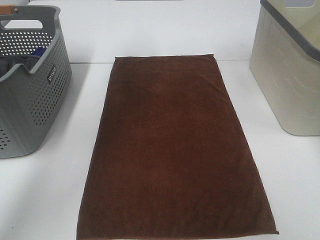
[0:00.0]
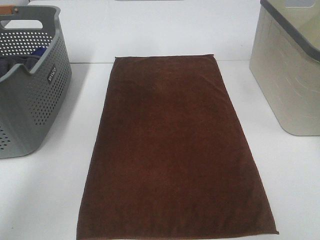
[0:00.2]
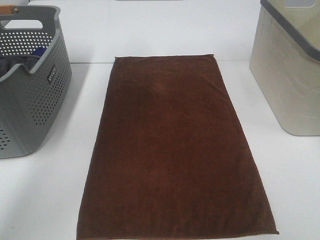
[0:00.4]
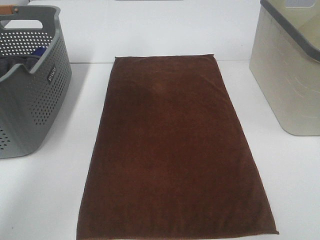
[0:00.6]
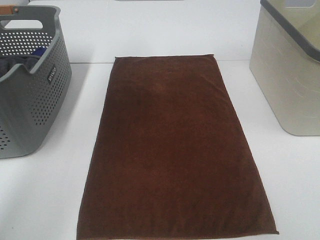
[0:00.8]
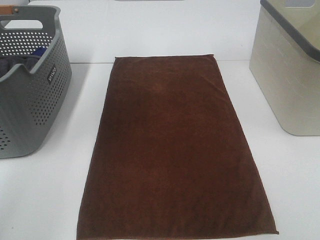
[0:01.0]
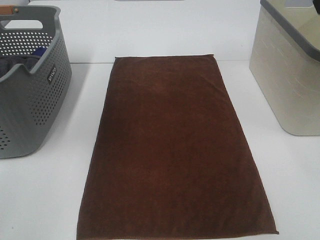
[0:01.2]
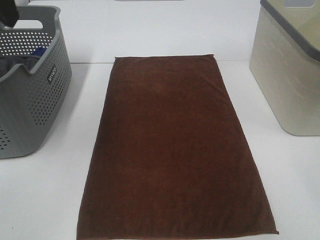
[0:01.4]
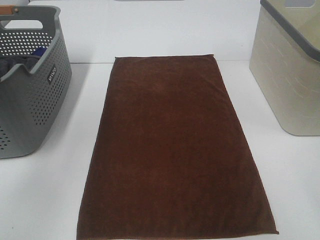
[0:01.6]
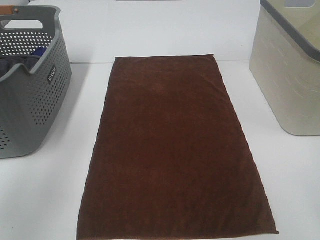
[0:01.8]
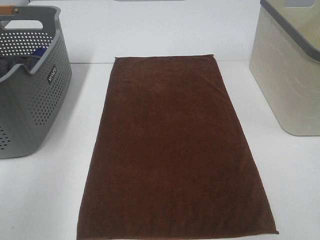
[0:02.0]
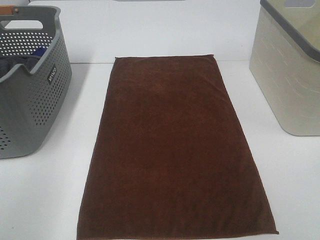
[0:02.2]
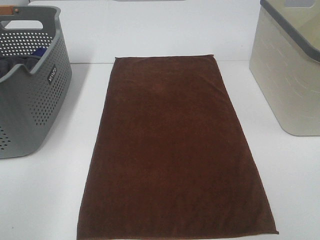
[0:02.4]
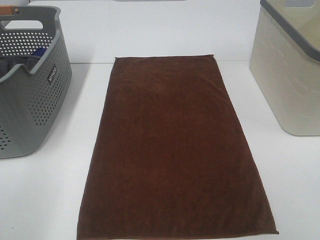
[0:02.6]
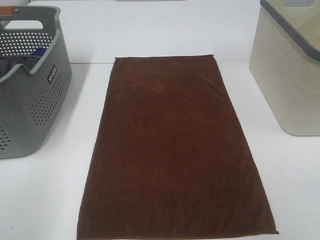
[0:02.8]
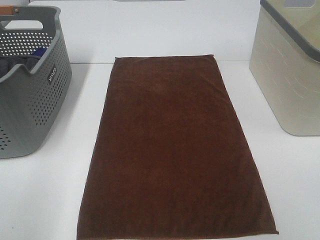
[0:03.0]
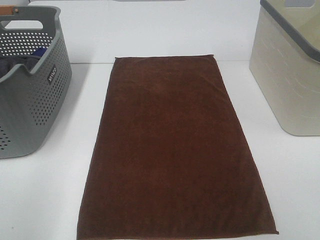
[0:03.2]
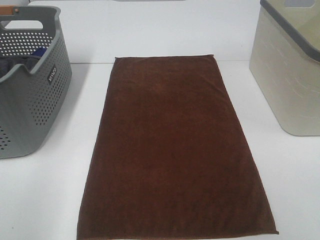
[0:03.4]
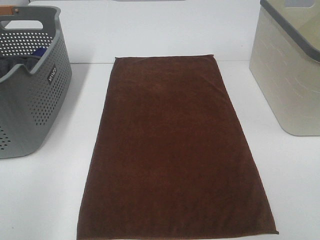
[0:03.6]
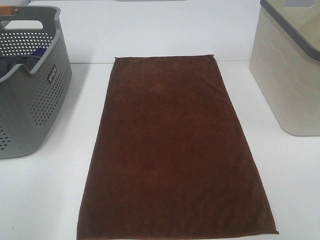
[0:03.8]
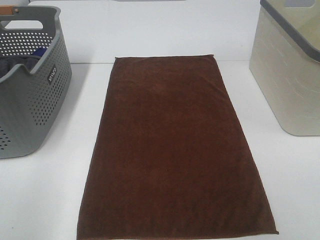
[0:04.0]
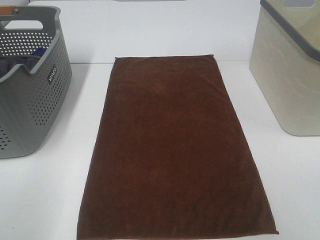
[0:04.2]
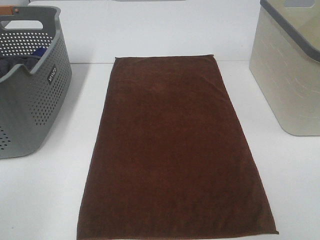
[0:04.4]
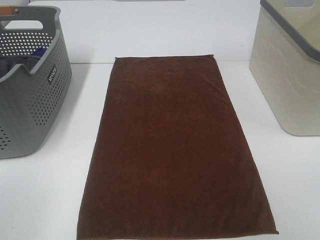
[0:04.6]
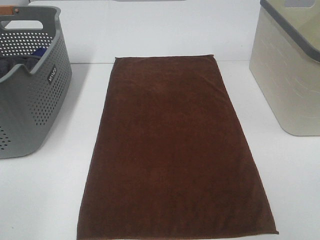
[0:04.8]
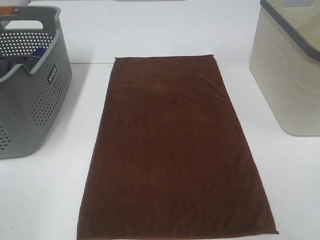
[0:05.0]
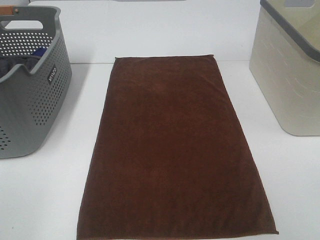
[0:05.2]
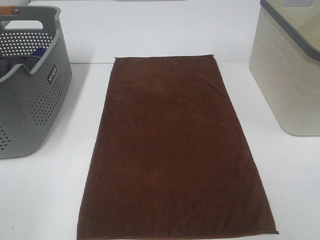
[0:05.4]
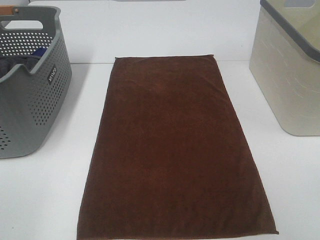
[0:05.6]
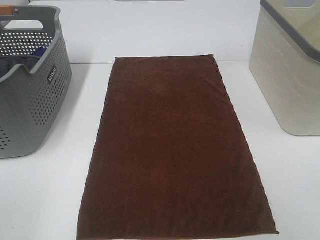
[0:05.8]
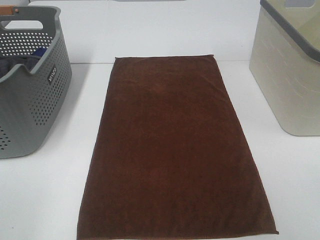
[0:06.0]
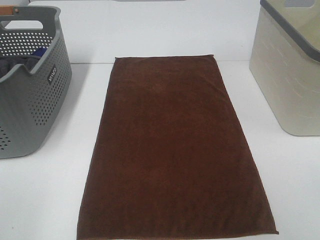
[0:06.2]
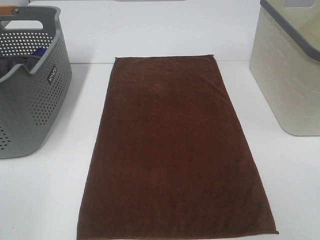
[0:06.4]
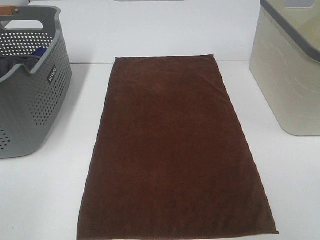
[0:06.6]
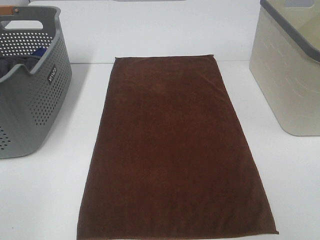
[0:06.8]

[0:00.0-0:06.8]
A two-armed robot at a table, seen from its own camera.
Task of the whole recording: Remove the towel and place it.
0:00.0 to 0:01.4: The left gripper travels backward by about 20 cm.
0:01.4 to 0:02.8: The left gripper moves backward and downward, roughly 25 cm.
0:02.8 to 0:04.0: Both grippers stay put.
0:05.4 to 0:06.8: Neither gripper changes place.

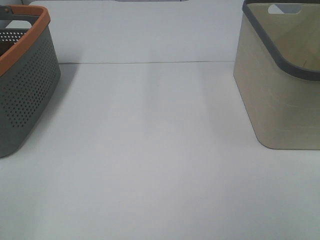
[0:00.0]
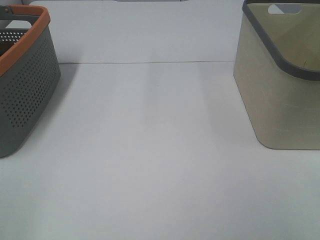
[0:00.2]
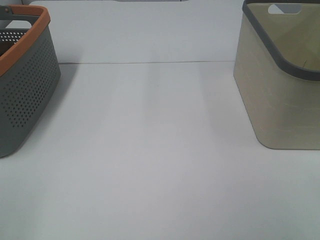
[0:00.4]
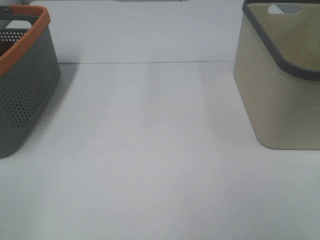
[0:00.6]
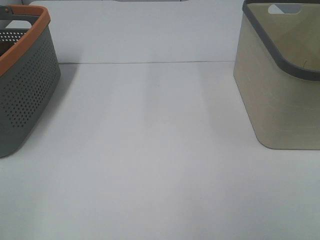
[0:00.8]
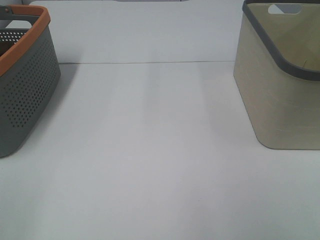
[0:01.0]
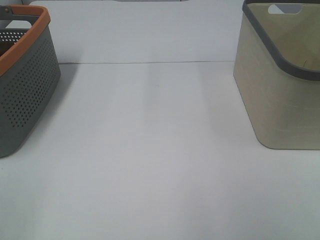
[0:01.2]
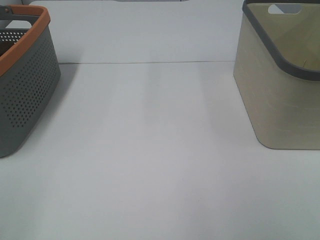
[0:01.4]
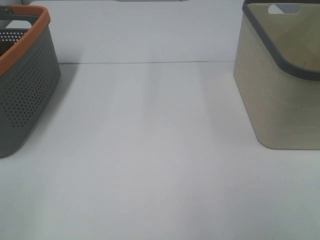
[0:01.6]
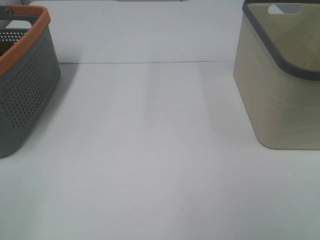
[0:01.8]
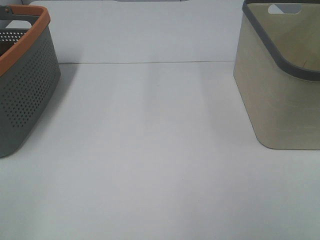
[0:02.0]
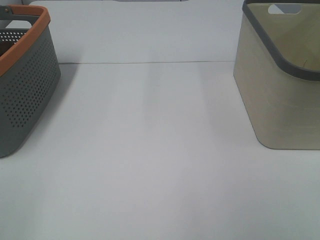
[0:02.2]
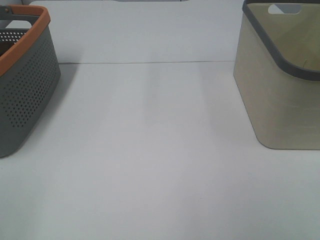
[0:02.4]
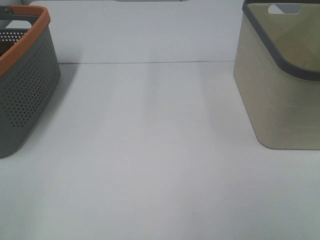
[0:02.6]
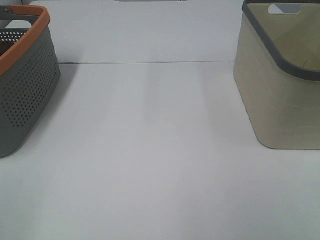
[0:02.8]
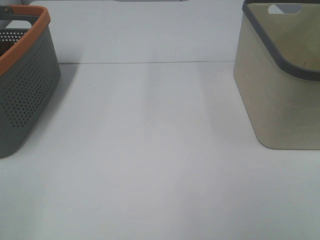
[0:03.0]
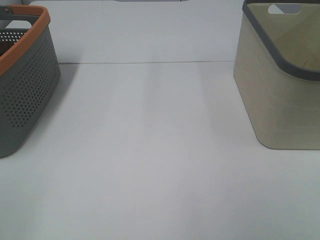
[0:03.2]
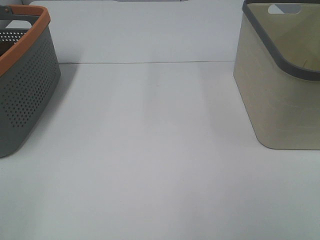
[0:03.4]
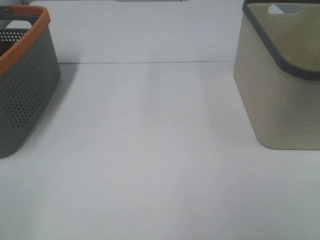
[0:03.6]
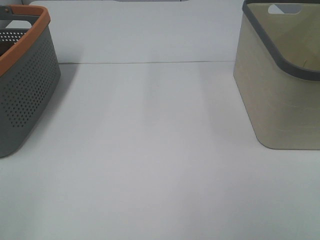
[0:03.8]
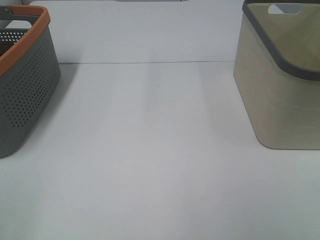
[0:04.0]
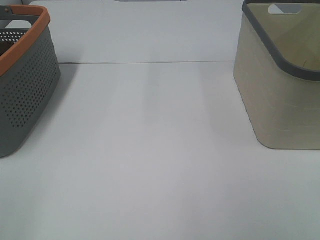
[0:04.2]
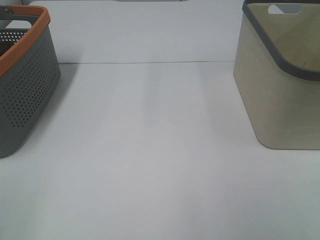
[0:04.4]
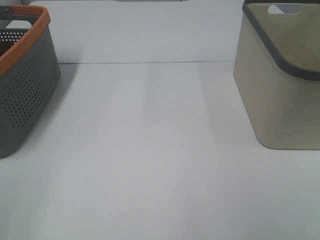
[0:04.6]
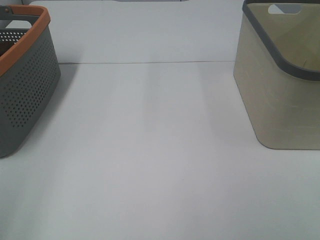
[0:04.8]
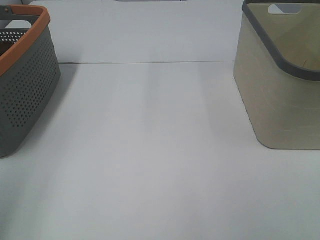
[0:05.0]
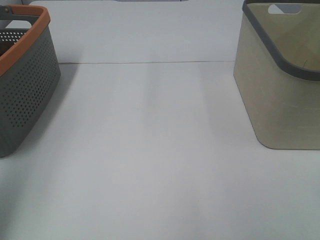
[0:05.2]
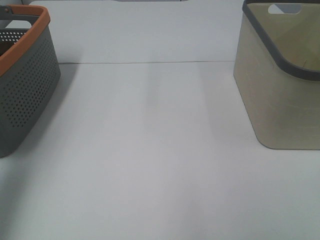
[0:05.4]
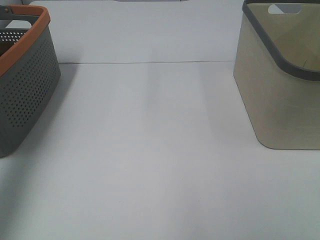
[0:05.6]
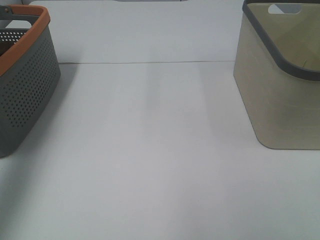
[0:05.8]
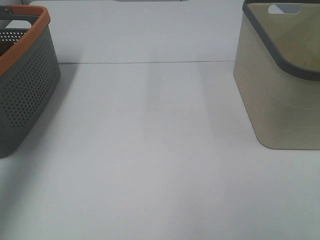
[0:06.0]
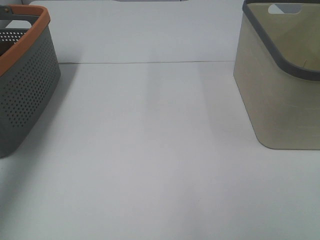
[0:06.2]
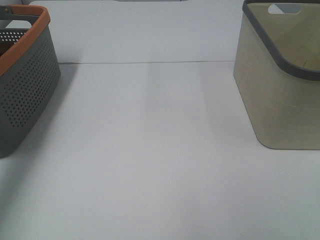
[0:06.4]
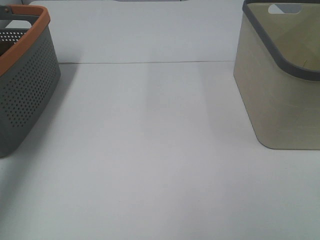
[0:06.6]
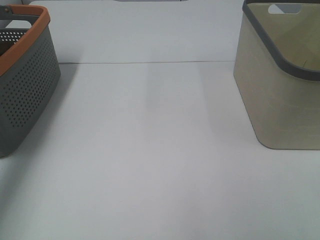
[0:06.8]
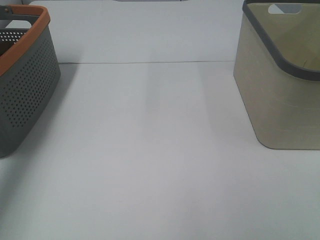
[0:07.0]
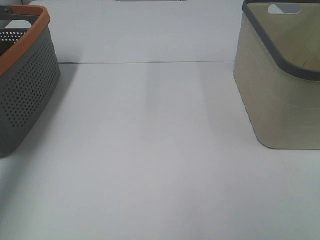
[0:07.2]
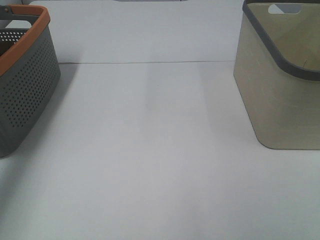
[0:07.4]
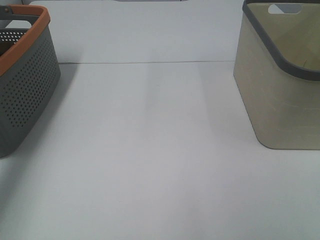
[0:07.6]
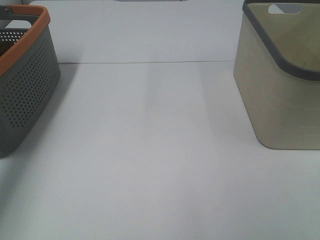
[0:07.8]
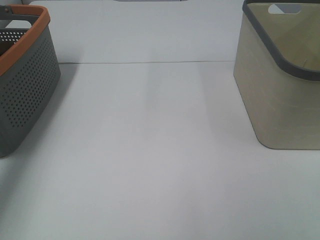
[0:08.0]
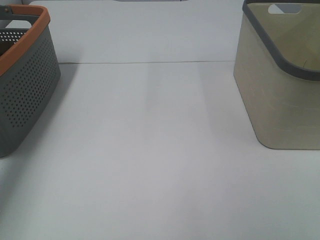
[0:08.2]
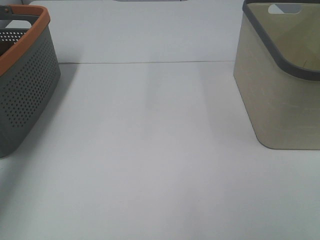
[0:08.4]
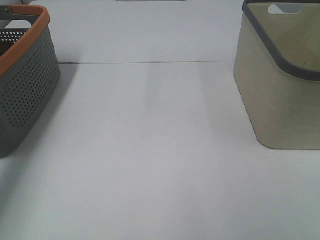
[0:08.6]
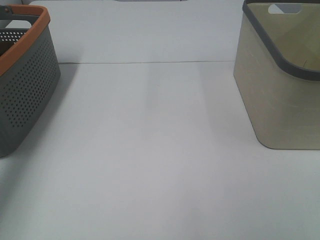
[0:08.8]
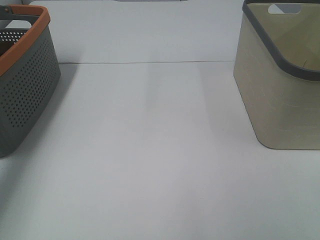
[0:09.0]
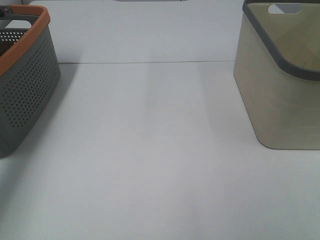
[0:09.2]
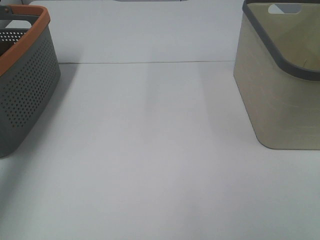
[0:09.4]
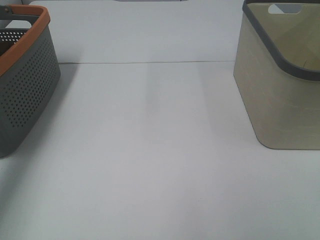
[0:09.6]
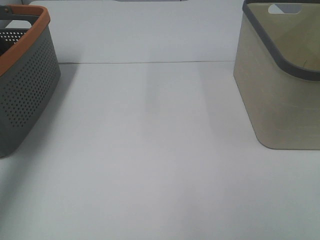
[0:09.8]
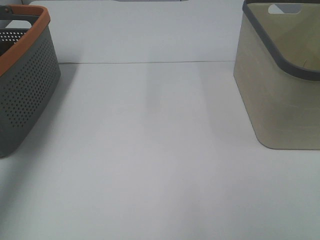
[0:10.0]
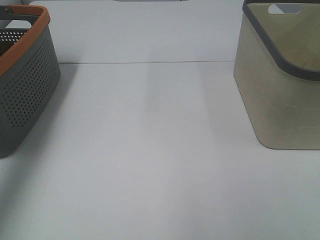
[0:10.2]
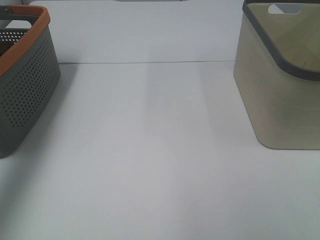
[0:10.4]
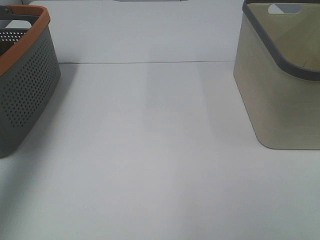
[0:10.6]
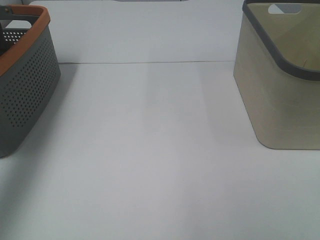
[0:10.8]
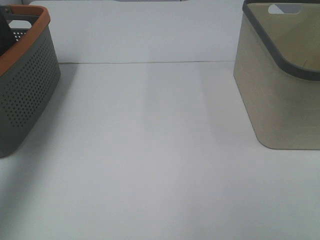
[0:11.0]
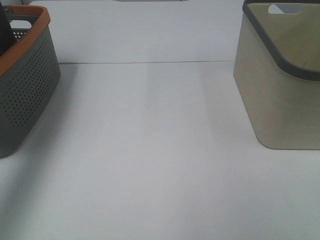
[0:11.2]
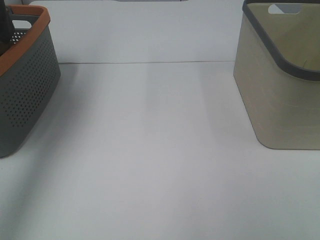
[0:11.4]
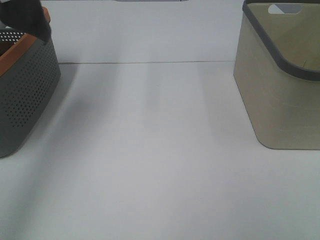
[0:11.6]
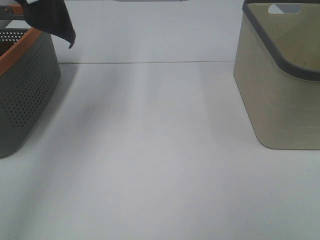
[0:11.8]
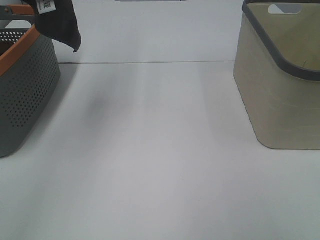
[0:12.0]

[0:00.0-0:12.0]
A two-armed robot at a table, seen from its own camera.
Task of the whole recording: Remove the towel and place it.
0:01.6 to 0:04.4: Neither gripper changes place.
0:04.4 to 0:06.0: The left gripper is displaced forward by approximately 35 cm.
0:10.4 to 0:12.0: The left gripper is displaced upward, to the right and backward by approximately 20 cm.

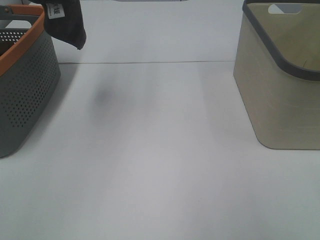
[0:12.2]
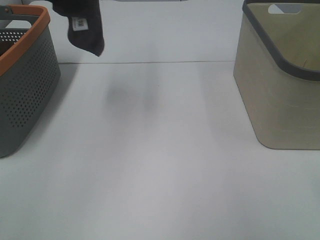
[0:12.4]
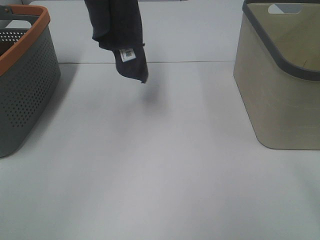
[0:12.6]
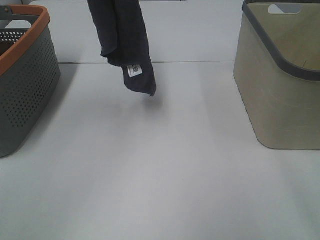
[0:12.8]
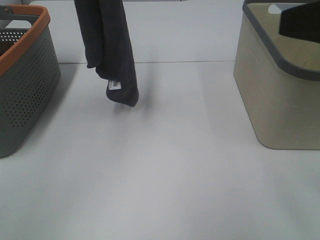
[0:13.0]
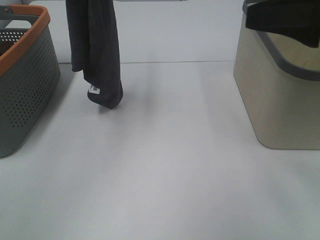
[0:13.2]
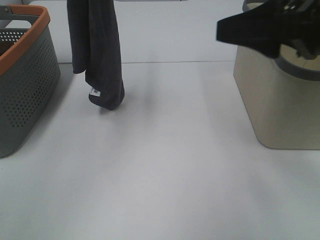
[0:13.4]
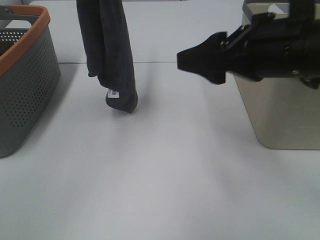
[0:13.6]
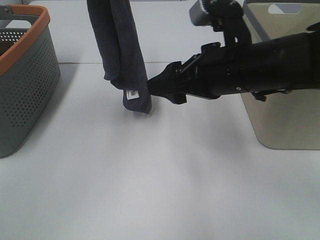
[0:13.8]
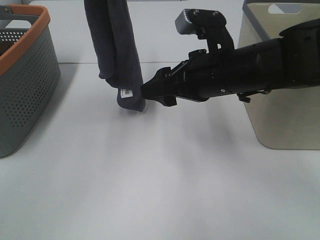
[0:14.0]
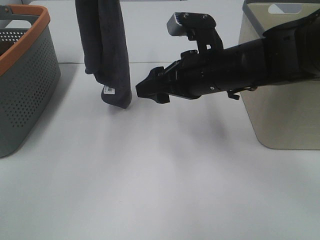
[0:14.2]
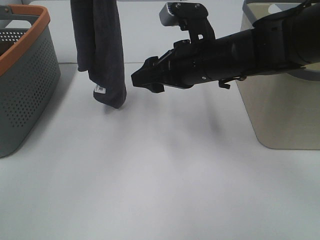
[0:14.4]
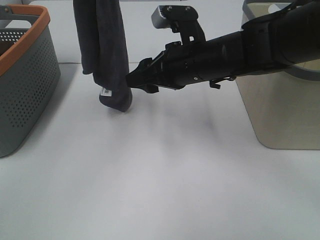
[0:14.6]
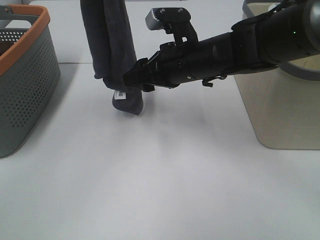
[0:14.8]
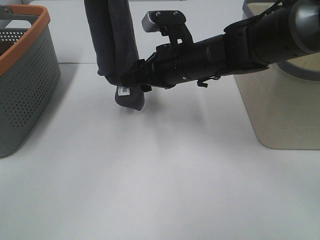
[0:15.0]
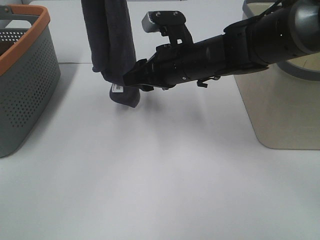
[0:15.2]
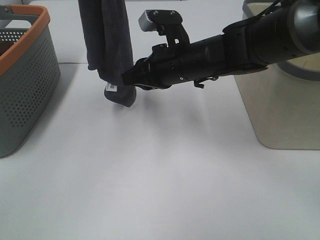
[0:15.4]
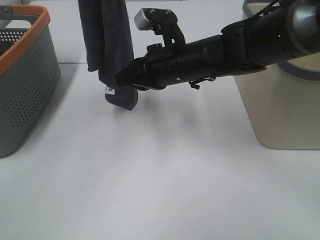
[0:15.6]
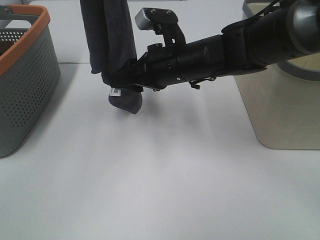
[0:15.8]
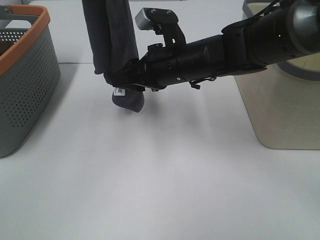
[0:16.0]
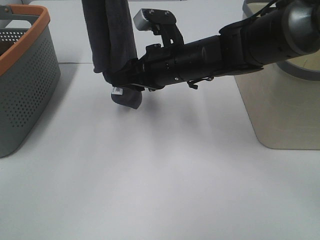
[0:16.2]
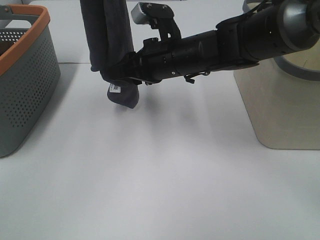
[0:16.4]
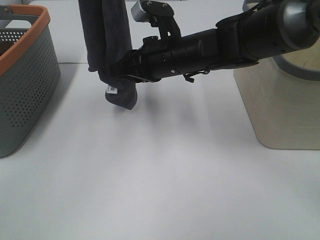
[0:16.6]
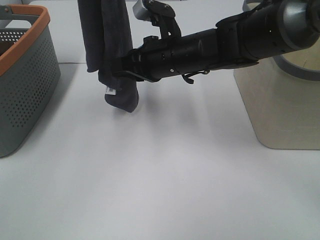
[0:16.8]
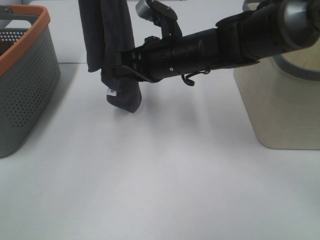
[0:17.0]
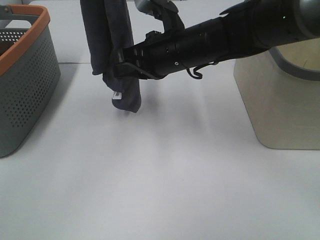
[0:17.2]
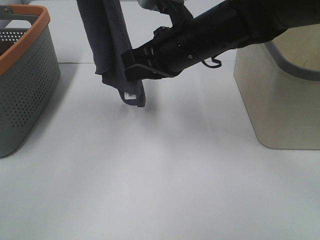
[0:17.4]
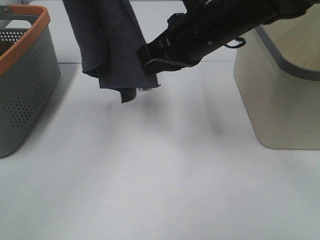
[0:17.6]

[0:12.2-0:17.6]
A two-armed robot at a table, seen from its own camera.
Task of the whole recording: Remove the towel and place it.
Step, 0:12.2 to 0:16.0: Right hand: grab a corner of the grey towel and straighten it.
0:12.2 to 0:13.6: The right gripper goes about 25 cm forward and to the left, while the left gripper heads downward, covering roughly 10 cm.
0:13.6 to 0:15.0: The right gripper travels forward, to the left and downward by approximately 15 cm.
0:15.0 to 0:16.2: There are only small adjustments of the grippers.
0:16.2 to 0:17.6: The right gripper moves upward, some 10 cm, and closes.
